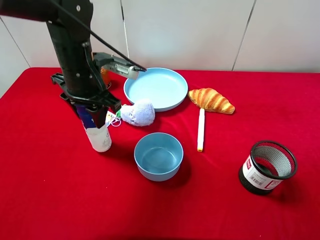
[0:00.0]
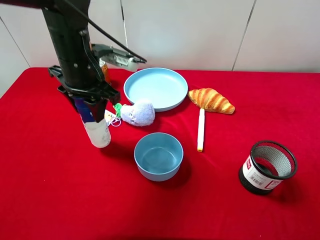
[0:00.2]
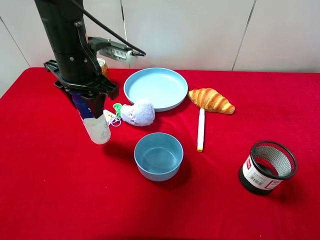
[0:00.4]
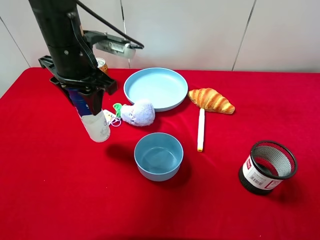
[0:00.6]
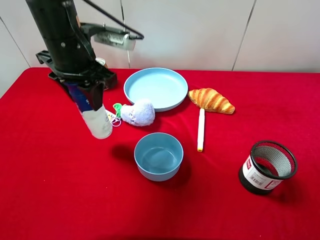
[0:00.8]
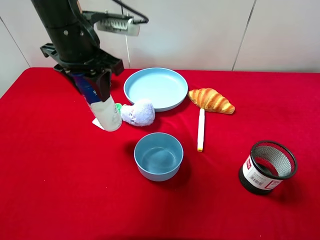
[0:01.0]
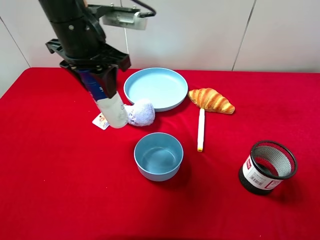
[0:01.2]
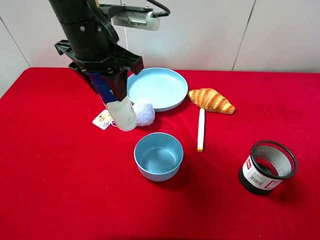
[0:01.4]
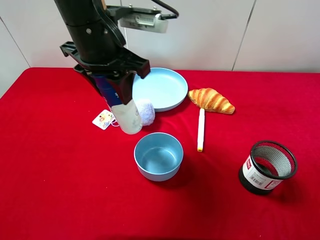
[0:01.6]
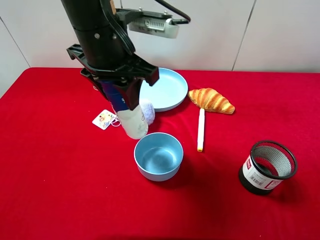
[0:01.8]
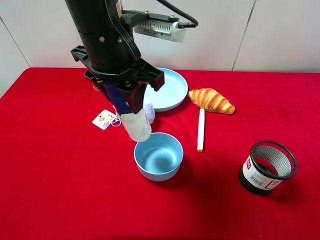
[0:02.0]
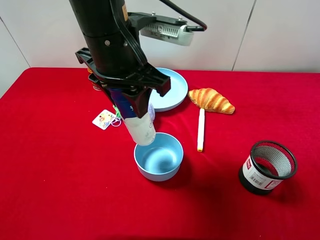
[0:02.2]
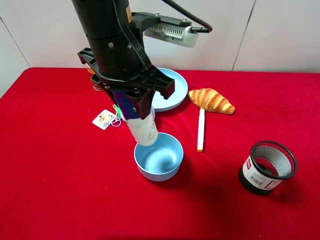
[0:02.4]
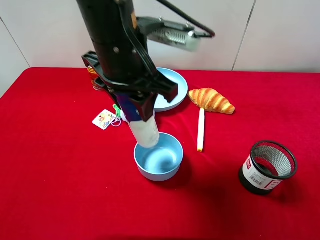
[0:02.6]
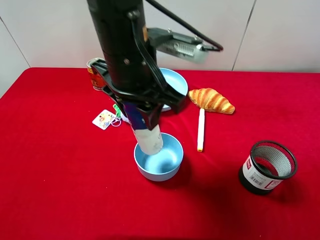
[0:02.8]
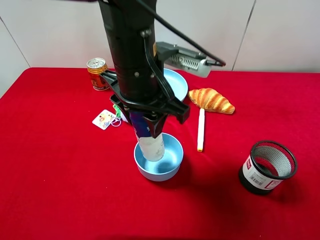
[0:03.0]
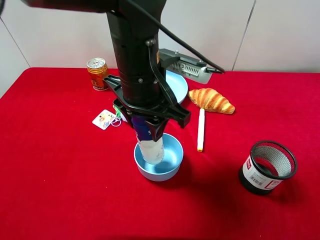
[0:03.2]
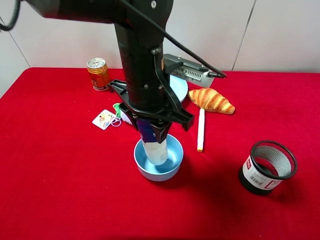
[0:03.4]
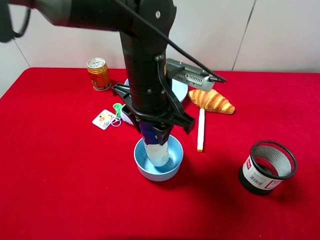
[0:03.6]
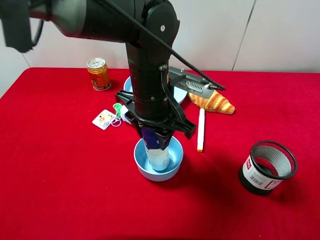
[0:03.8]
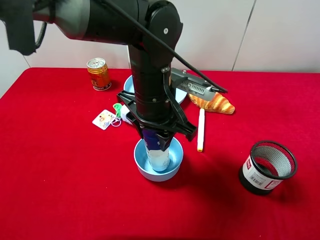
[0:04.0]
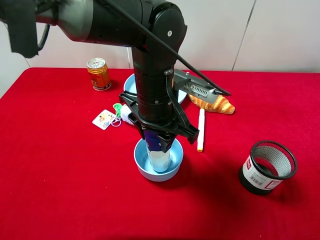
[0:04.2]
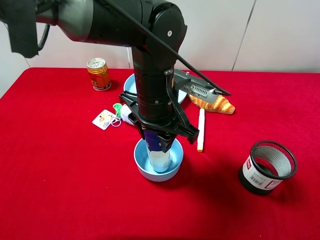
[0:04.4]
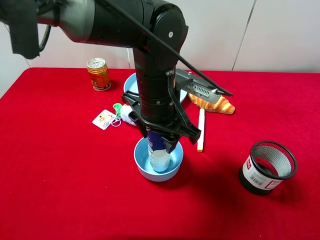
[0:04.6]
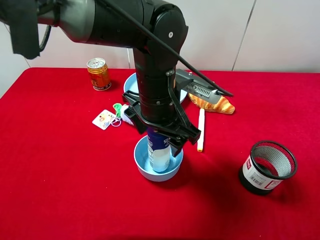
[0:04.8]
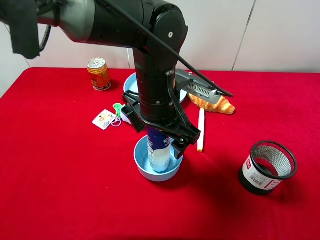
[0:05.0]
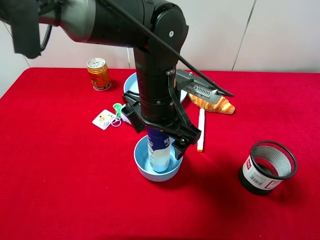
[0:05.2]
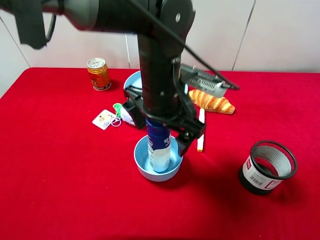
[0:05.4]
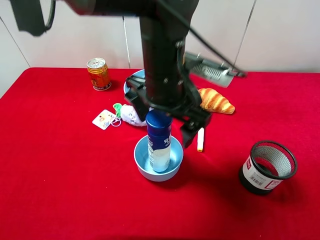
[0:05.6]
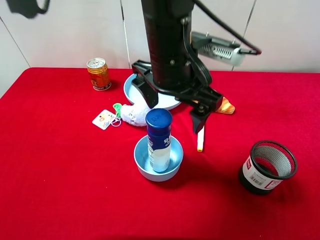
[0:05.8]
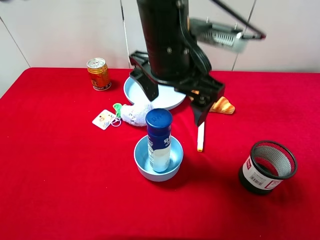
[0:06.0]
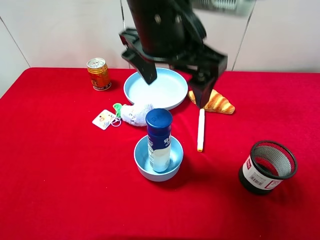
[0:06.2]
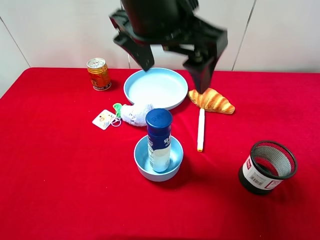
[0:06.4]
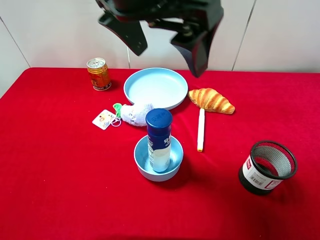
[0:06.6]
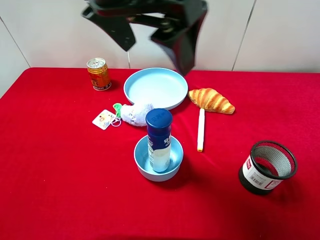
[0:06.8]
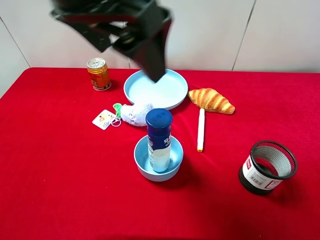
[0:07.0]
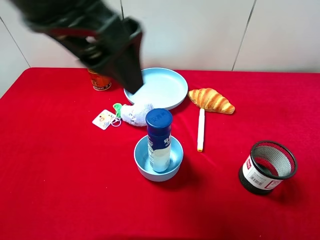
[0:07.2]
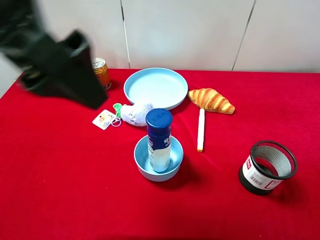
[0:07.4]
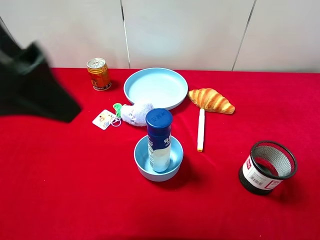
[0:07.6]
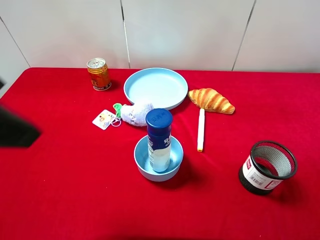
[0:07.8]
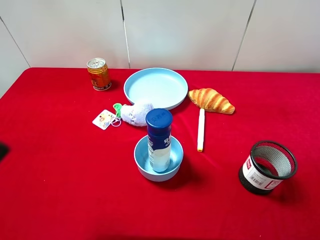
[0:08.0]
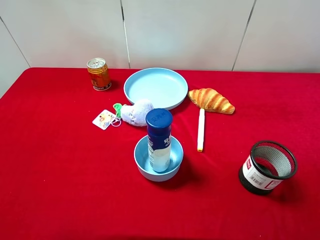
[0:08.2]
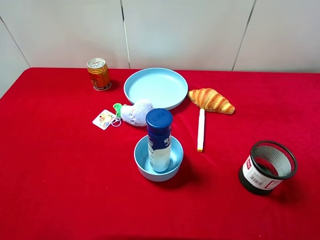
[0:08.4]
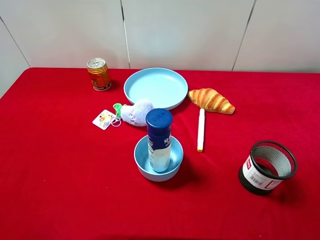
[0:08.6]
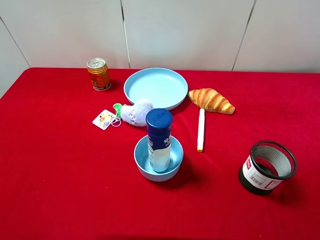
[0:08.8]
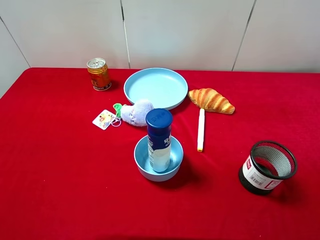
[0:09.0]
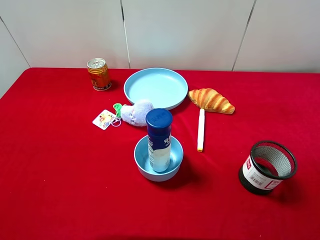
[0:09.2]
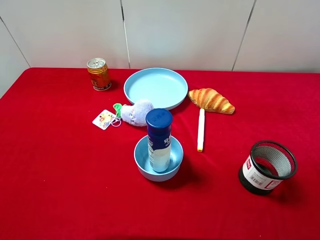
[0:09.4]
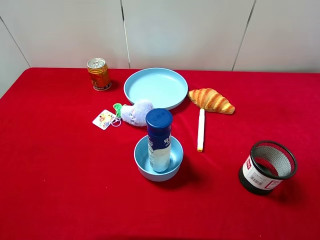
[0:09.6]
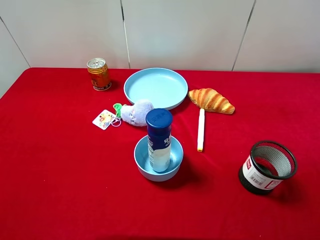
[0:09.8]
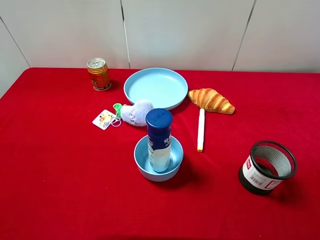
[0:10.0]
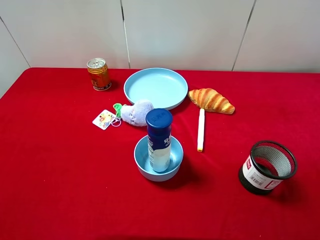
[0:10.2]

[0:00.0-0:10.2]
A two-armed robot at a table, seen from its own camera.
Task of the whole recording: pick up an item with a gripper and place it in a random container on the desktop.
0:00.0 to 0:01.4: The left gripper is displaced upward by about 10 cm.
0:01.4 to 0:03.0: The left gripper goes some 5 cm to the right.
0:03.0 to 0:04.4: The left gripper travels downward by roughly 5 cm.
0:04.4 to 0:05.8: The left gripper heads upward, covering about 5 cm, and opens up.
0:05.8 to 0:07.2: The left gripper travels to the left, upward and backward by approximately 20 cm.
0:07.2 to 0:08.8: The left gripper shifts some 30 cm to the left, backward and downward.
